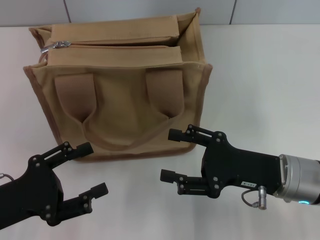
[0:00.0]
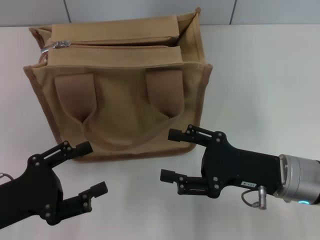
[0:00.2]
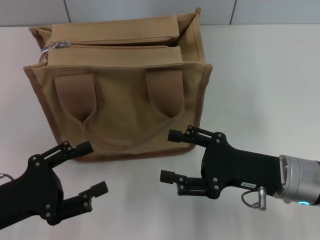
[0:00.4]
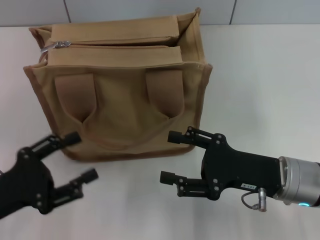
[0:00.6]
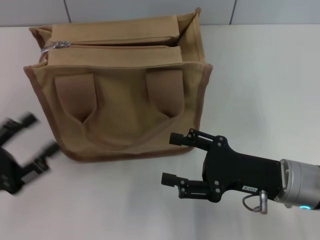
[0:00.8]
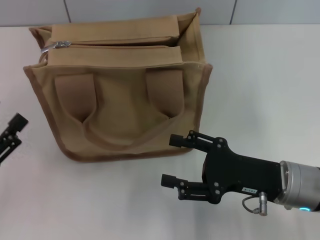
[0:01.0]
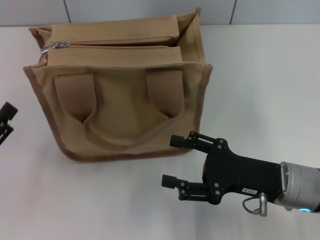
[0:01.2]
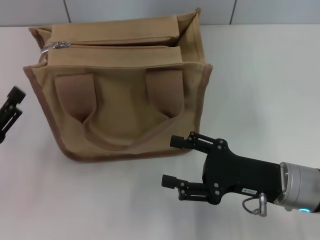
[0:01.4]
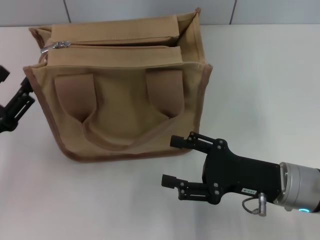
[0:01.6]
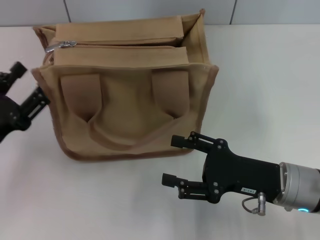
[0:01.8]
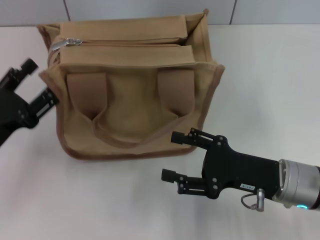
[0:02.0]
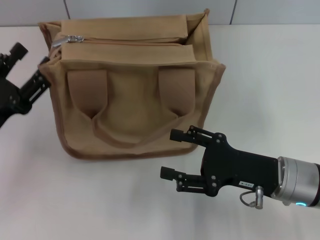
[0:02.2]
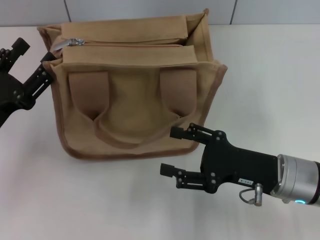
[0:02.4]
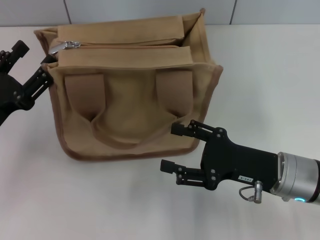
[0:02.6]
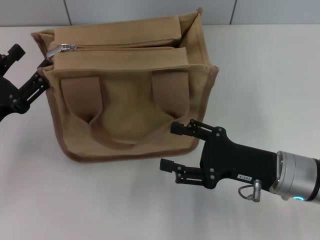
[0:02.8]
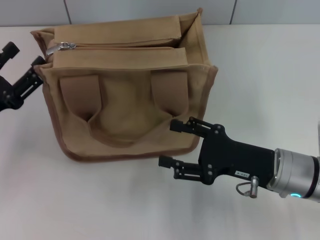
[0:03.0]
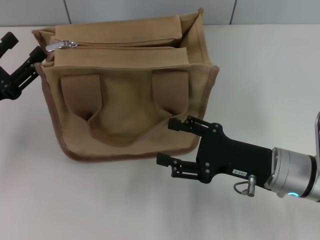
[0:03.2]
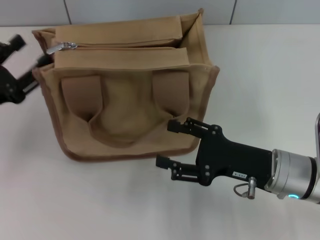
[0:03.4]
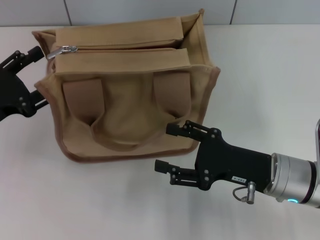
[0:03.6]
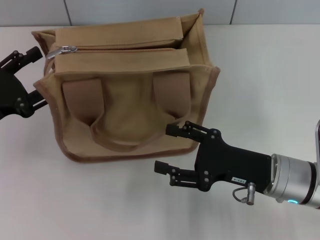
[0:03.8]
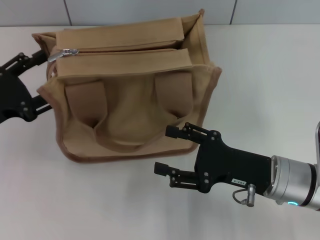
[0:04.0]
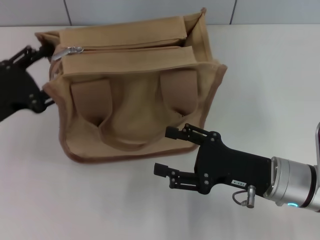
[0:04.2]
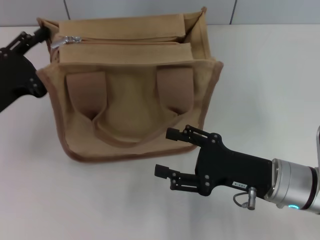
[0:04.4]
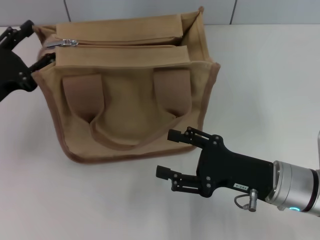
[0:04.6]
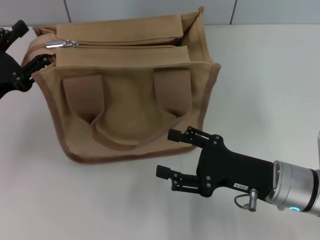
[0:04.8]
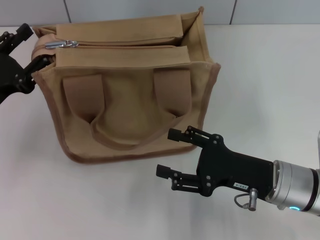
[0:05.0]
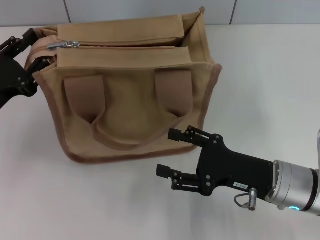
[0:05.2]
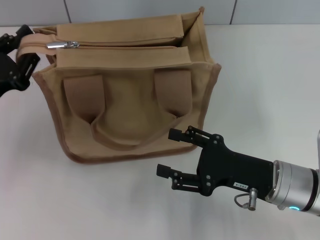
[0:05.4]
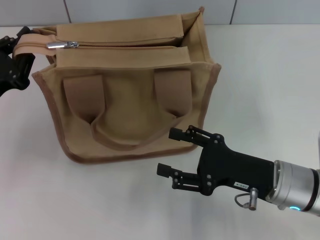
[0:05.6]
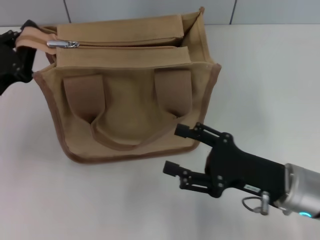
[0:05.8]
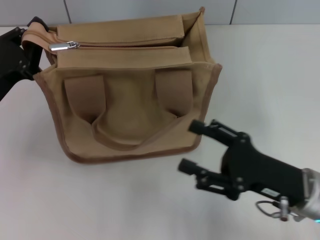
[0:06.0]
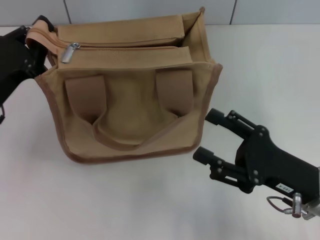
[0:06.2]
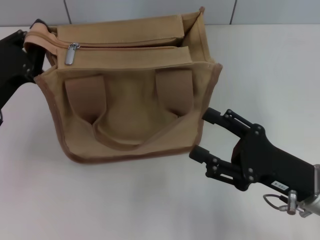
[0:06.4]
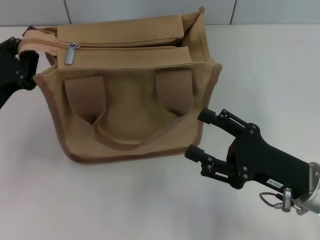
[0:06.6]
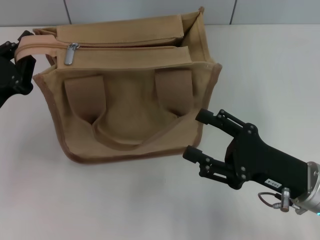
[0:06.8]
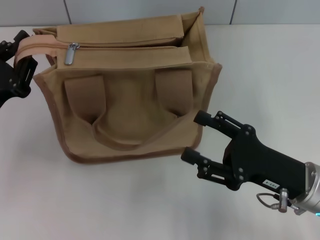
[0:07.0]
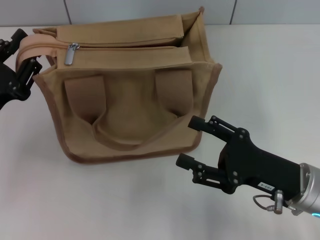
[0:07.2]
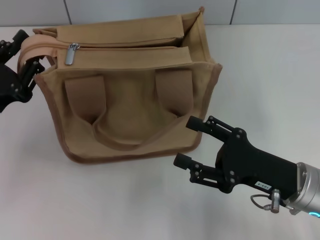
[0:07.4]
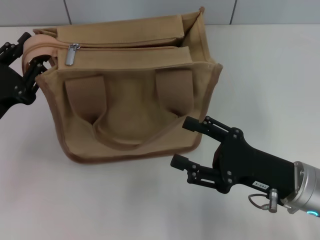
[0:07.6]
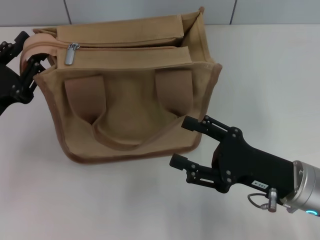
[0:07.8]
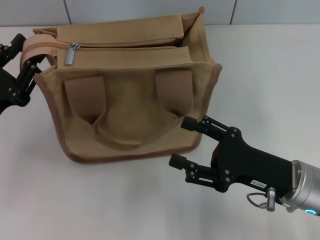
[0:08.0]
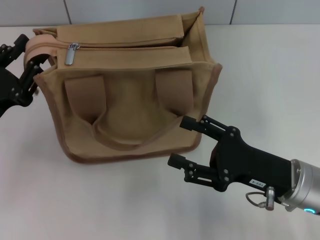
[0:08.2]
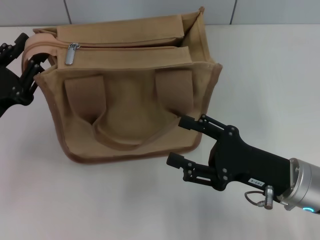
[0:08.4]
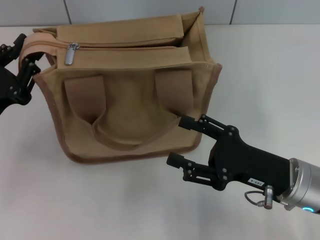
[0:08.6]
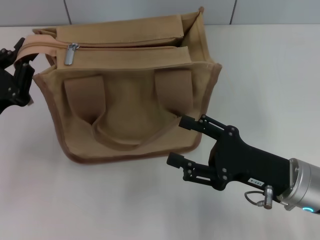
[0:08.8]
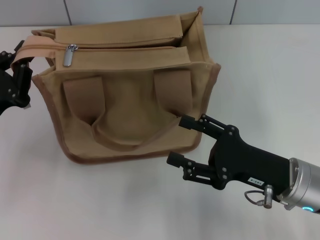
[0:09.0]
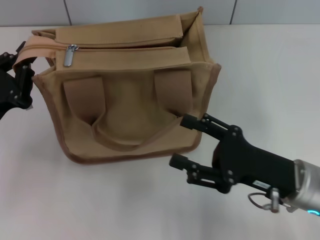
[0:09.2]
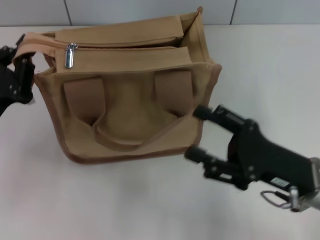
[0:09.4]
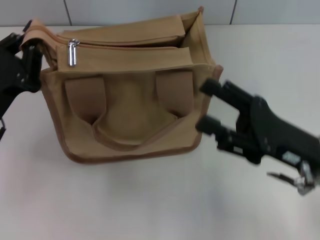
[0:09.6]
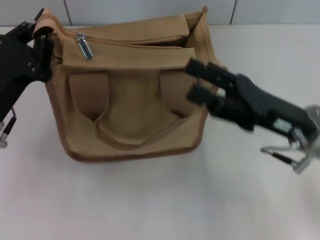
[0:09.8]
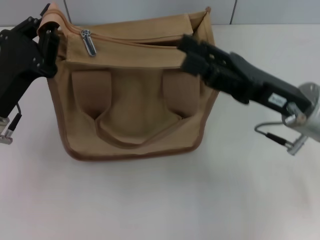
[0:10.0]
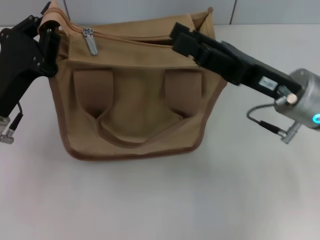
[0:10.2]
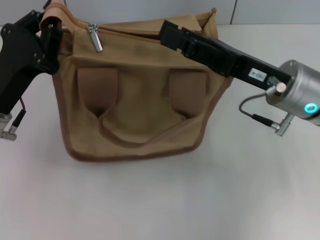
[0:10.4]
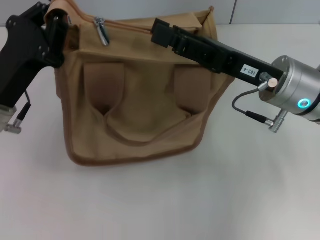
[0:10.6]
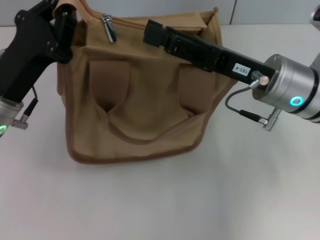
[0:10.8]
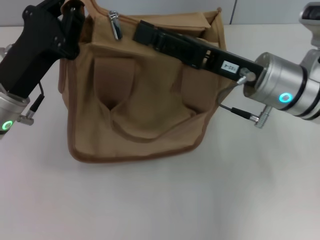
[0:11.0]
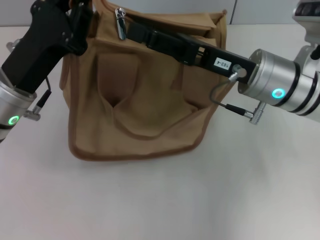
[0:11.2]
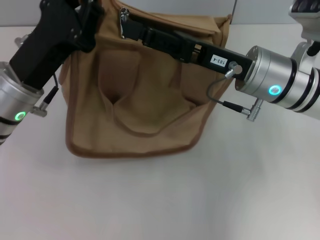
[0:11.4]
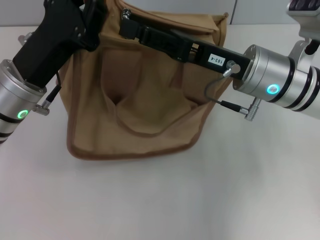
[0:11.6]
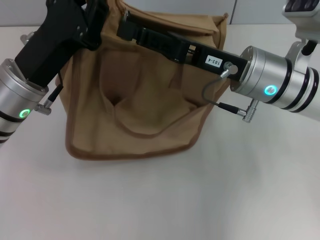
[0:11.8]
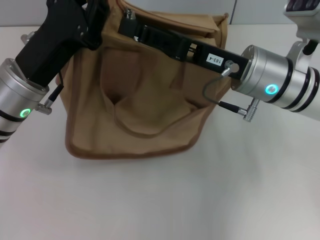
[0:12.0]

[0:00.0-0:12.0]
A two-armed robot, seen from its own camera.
0:01.6 to 0:03.0: There are only small adjustments of the grippers.
0:04.4 to 0:06.0: The left gripper closes its fingers.
0:06.0 to 0:07.6: The left gripper opens its fingers.
0:07.6 to 0:09.0: The left gripper closes.
0:09.0 to 0:10.4: The right gripper heads forward and upward, covering about 10 cm; the left gripper ends up approximately 5 cm from where it was.
0:10.4 to 0:12.0: The left gripper moves about 5 cm; the right gripper closes.

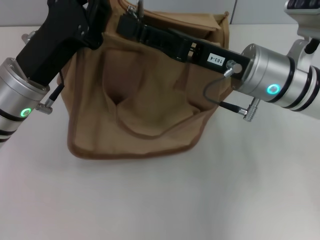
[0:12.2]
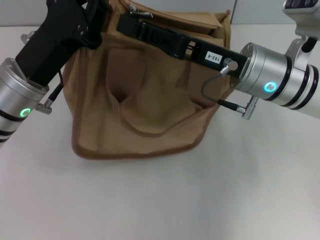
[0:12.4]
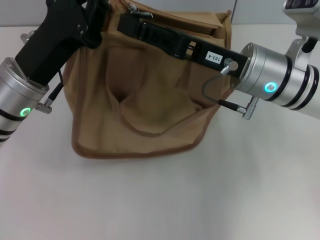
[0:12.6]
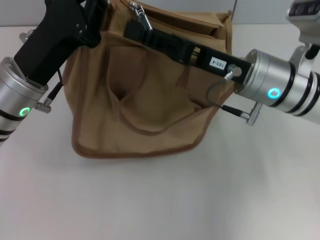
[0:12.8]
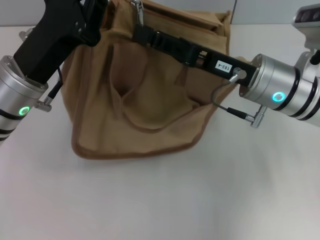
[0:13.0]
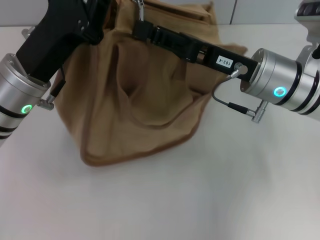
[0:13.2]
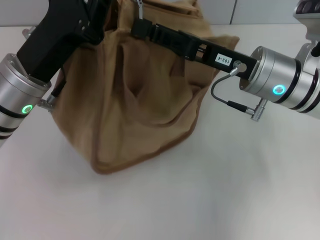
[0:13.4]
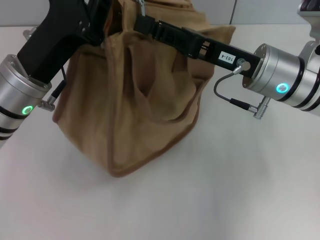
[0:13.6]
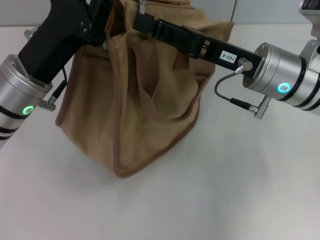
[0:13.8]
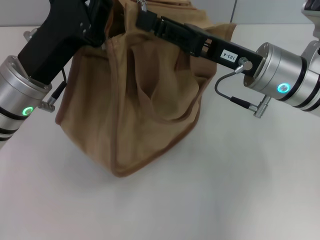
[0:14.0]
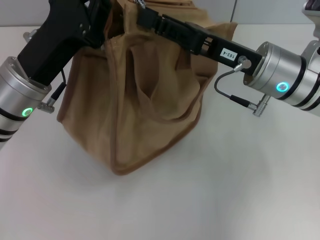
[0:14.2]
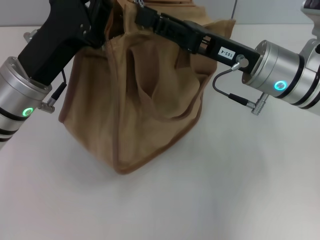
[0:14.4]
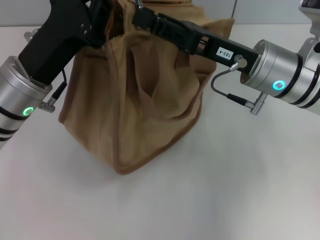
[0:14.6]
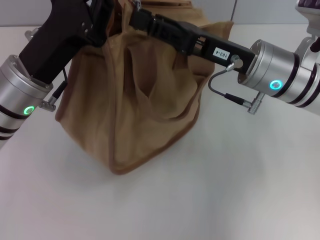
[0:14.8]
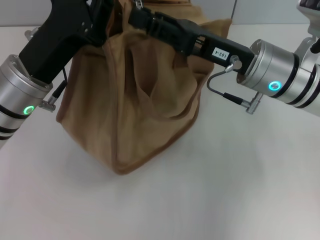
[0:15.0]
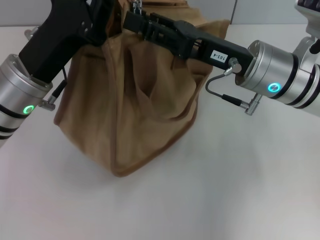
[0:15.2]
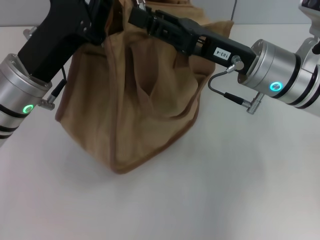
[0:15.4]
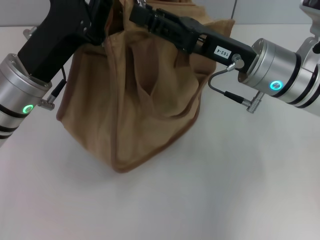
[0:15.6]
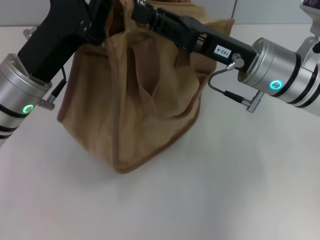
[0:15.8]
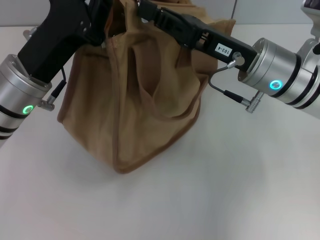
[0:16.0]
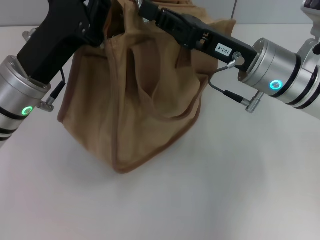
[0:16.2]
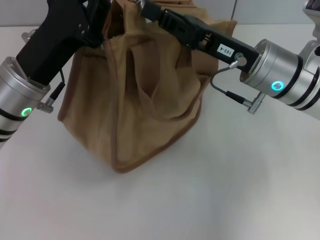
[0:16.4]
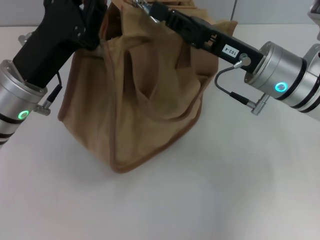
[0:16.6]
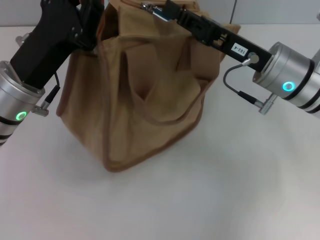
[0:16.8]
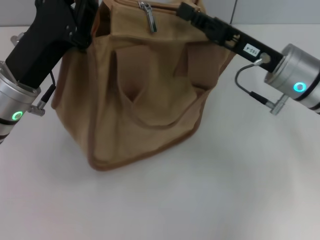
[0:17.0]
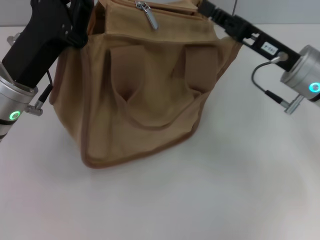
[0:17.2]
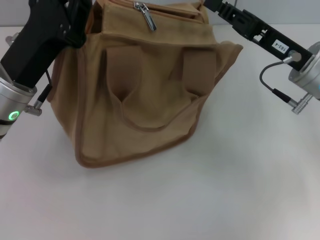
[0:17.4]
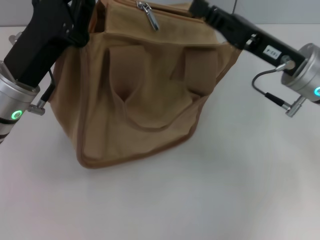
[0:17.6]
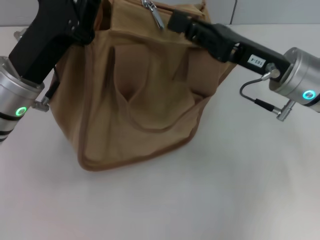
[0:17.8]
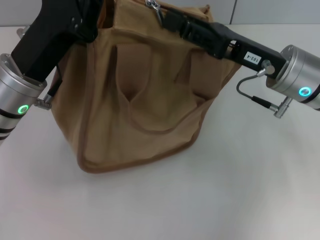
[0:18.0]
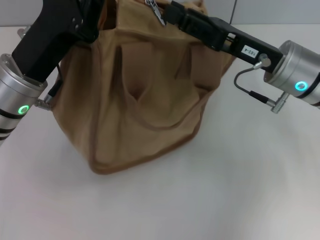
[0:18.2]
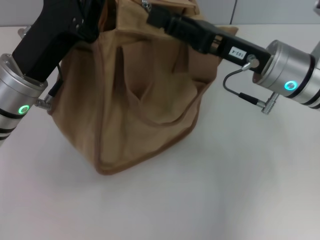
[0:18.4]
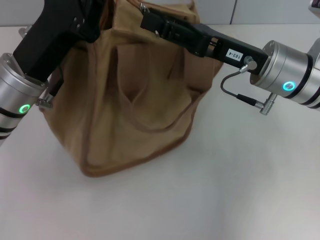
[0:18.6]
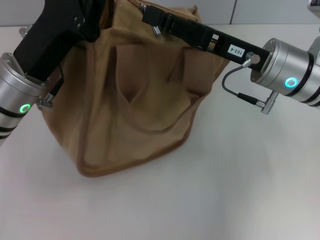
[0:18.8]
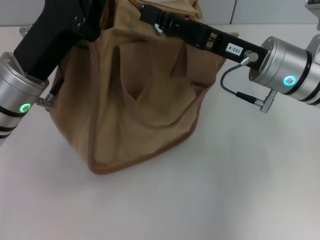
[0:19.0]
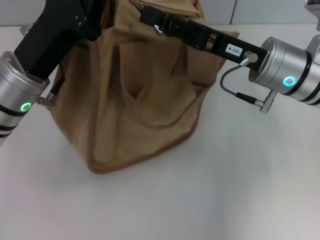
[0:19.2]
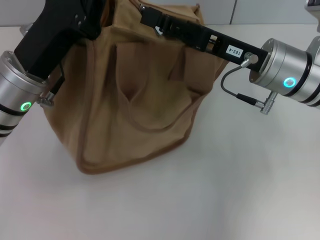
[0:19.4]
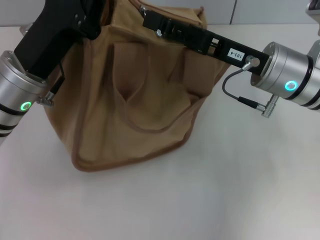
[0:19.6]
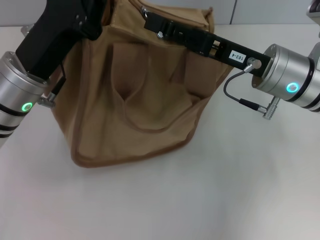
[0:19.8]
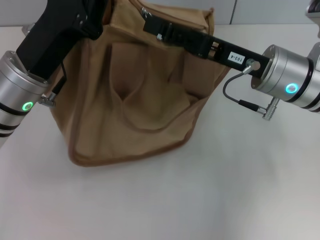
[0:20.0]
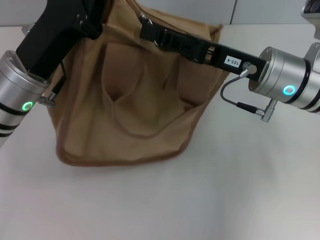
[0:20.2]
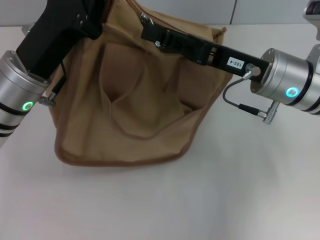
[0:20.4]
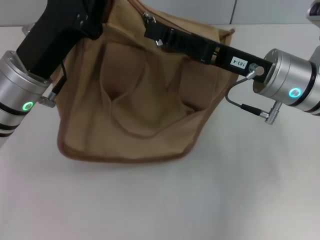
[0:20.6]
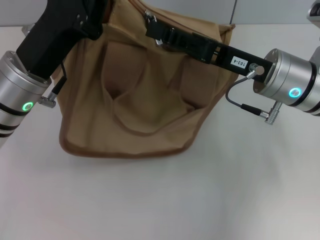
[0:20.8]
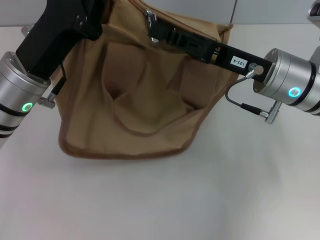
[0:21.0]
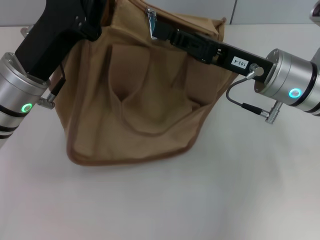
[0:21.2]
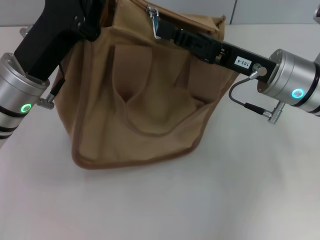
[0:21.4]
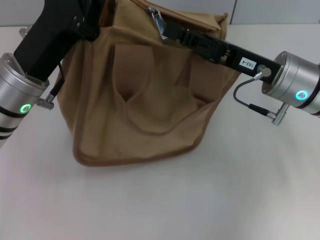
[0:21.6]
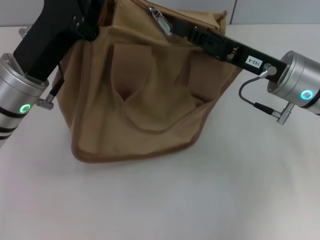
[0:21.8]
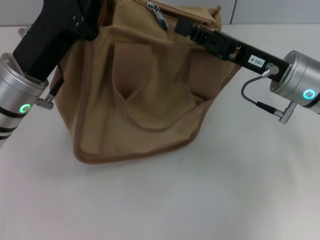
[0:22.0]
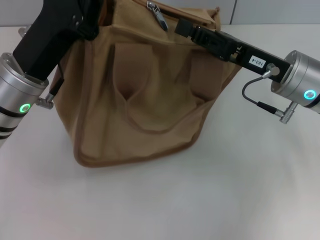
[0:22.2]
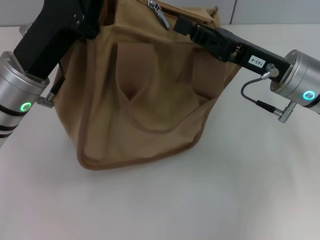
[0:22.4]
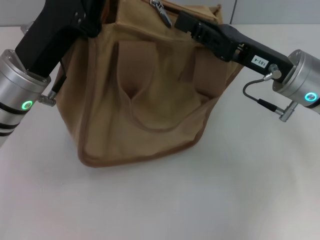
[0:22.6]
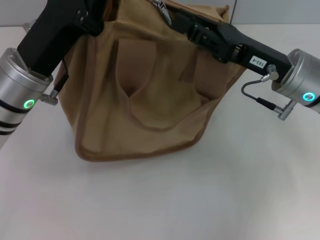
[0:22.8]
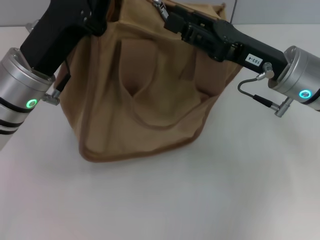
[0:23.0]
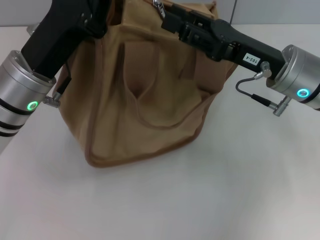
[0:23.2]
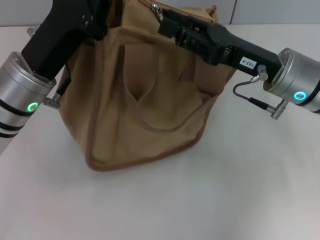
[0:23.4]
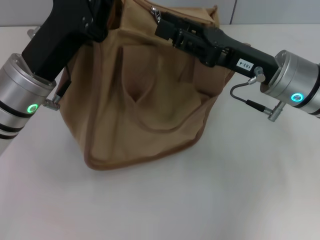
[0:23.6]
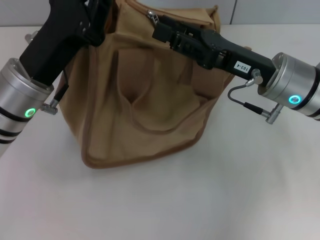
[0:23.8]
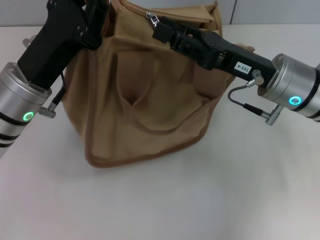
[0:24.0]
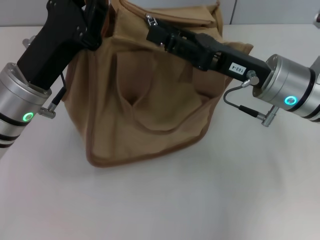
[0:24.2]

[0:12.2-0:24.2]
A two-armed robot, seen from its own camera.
0:13.8 to 0:15.2: The grippers stay close to where they were, moving slightly.
0:15.2 to 0:16.6: The right gripper closes.
0:16.6 to 0:18.2: The right gripper opens its fingers.
0:18.2 to 0:19.8: The grippers stay close to where they were, moving slightly.
0:19.8 to 0:21.2: The right gripper closes.
0:21.2 to 0:22.6: There are only small adjustments of the grippers.
0:22.6 to 0:24.2: The right gripper opens up.
